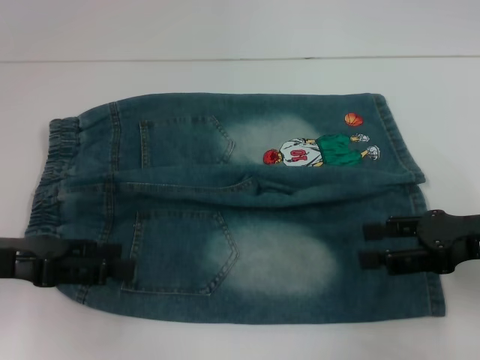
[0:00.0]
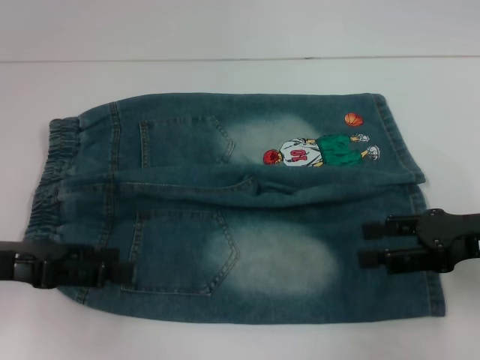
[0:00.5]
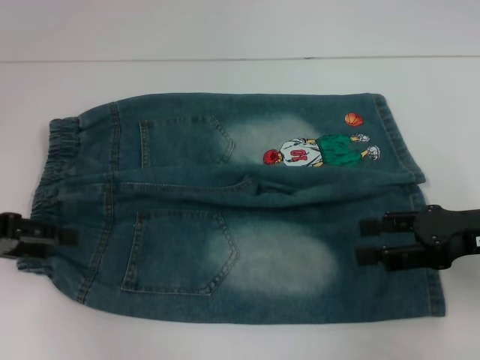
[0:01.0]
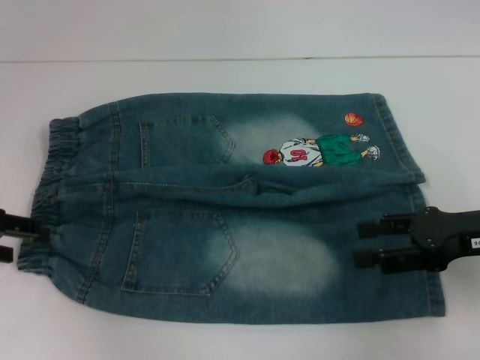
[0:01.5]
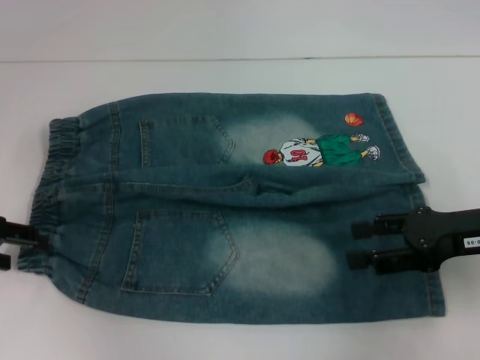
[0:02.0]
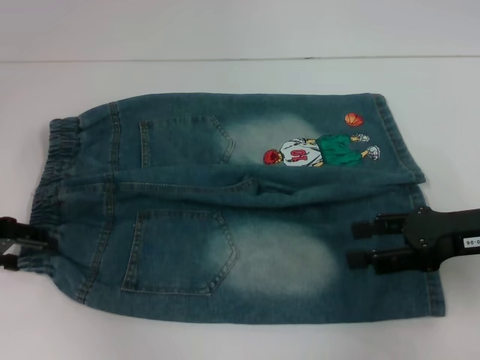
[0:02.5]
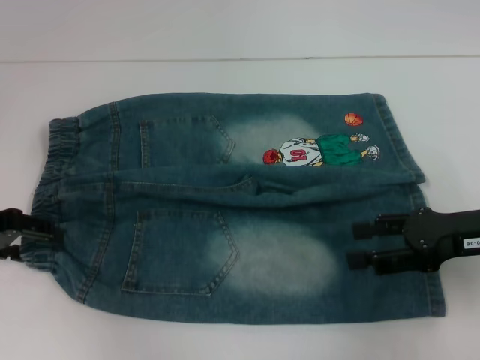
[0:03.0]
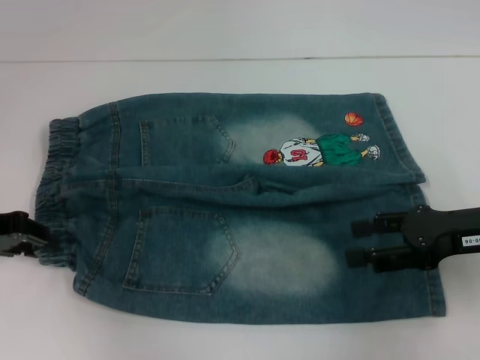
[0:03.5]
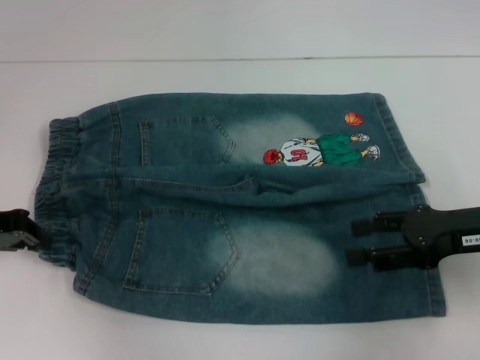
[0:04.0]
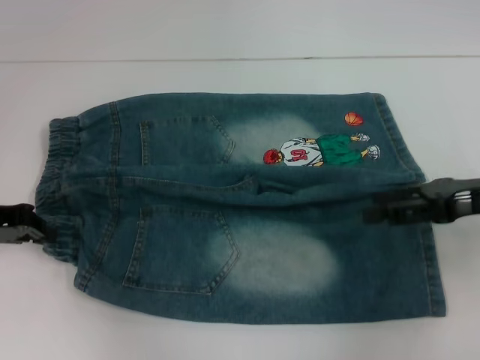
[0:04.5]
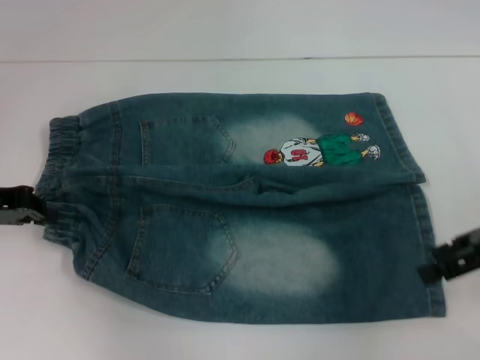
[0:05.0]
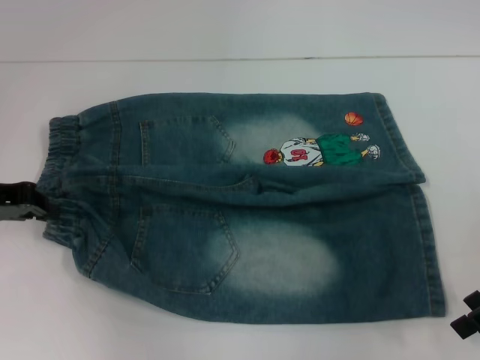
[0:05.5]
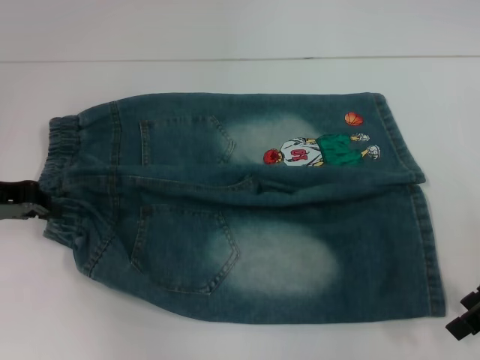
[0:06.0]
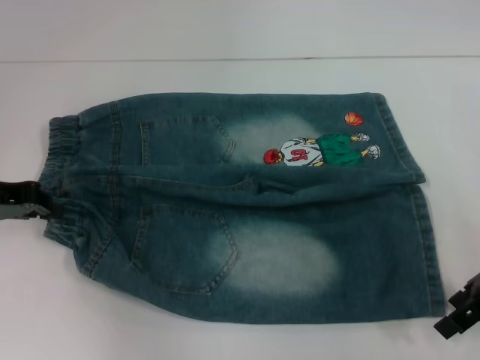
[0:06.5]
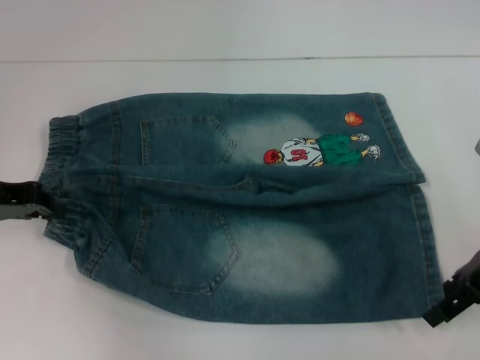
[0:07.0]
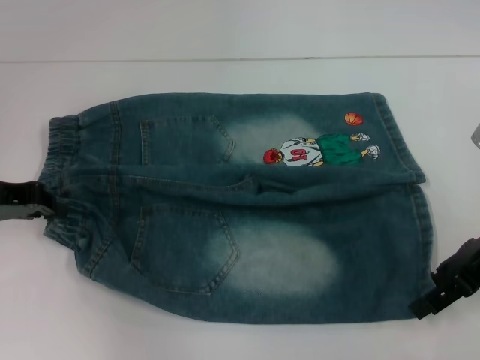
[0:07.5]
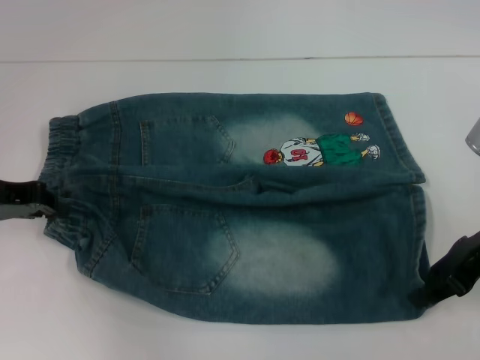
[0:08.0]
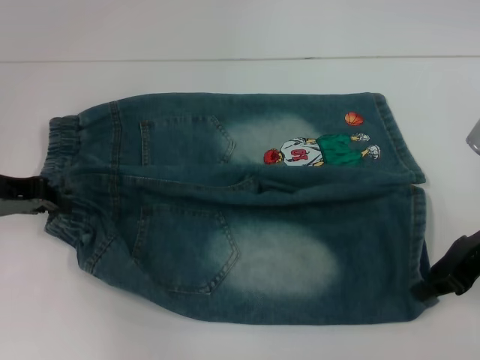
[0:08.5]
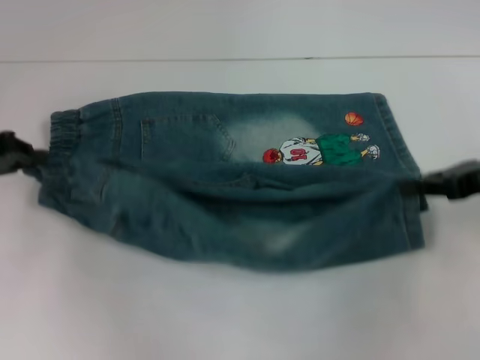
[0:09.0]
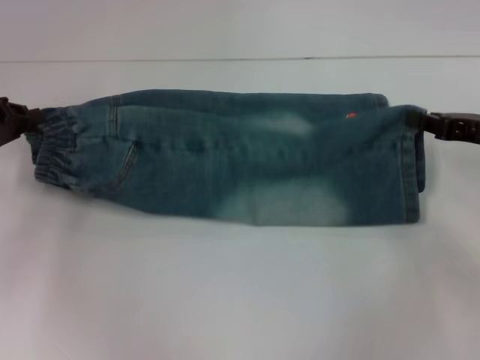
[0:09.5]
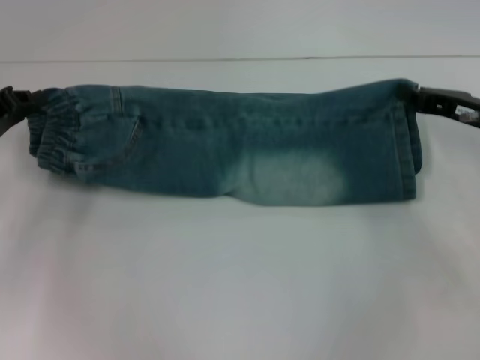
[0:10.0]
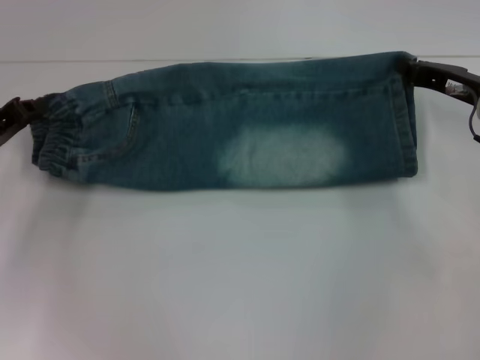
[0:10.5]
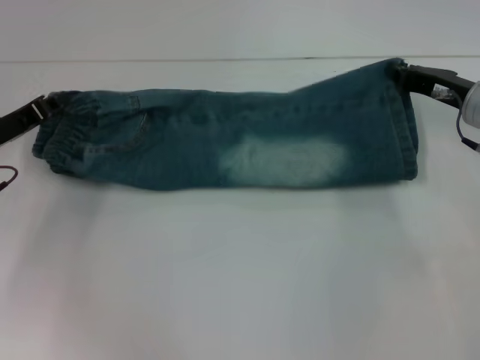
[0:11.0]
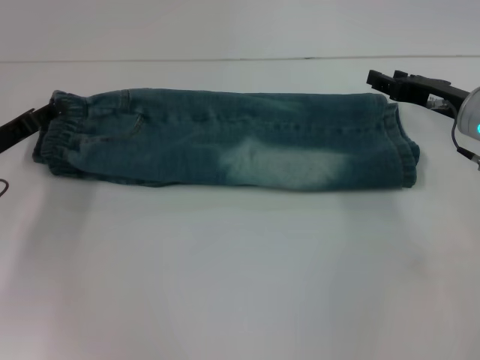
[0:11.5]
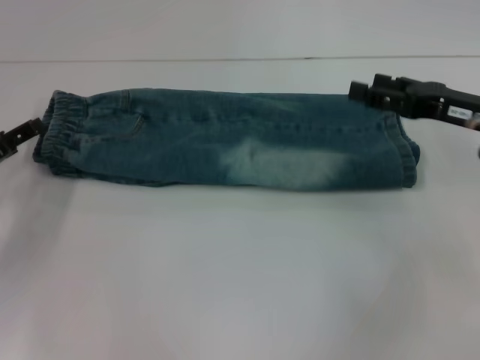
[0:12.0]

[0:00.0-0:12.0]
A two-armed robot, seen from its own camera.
Step, 0:00.0 to 0:04.0: Hold the lower left waistband with your left hand.
Step, 0:04.5 to 0:08.0: Grab the lower right pant leg with your right hand.
Step, 0:08.5 to 0:11.0: Fold upward with your left hand.
0:00.0 to 0:02.0: The left gripper is displaced forward and to the left by some 5 cm.
0:02.0 to 0:04.0: The left gripper closes its fingers.
0:06.0 to 0:08.0: The grippers move only a little.
0:08.0 to 0:10.0: The right gripper moves forward, about 5 cm, and closes up.
0:10.0 to 0:12.0: The right gripper opens up; the left gripper opens.

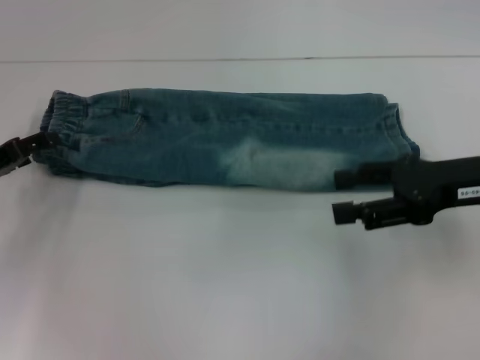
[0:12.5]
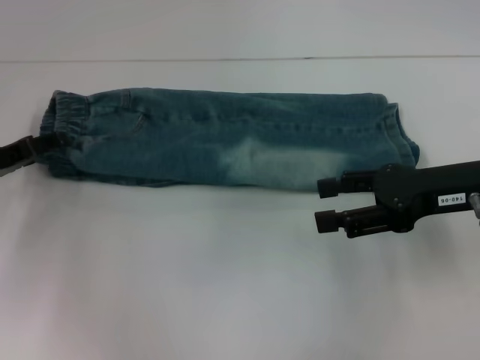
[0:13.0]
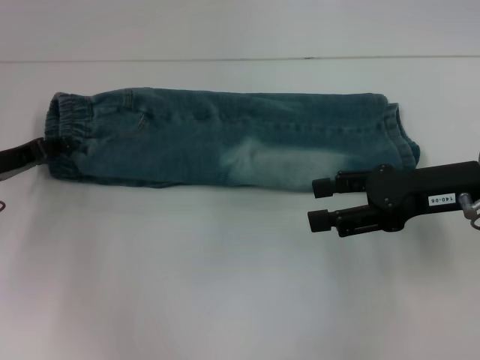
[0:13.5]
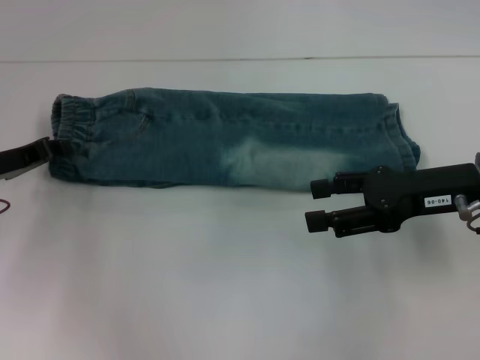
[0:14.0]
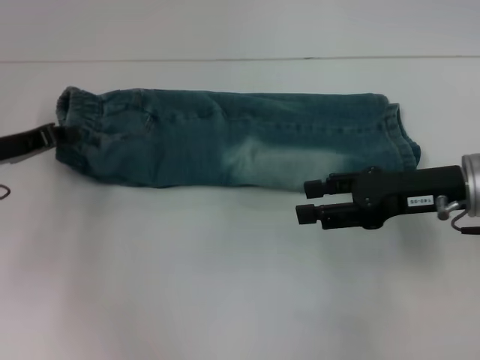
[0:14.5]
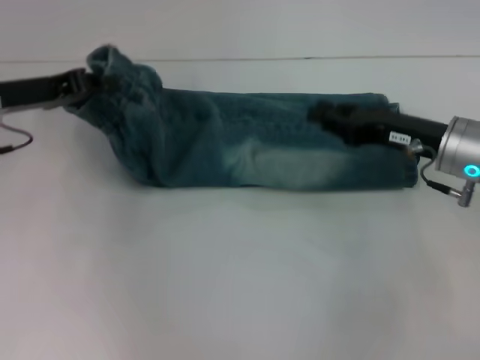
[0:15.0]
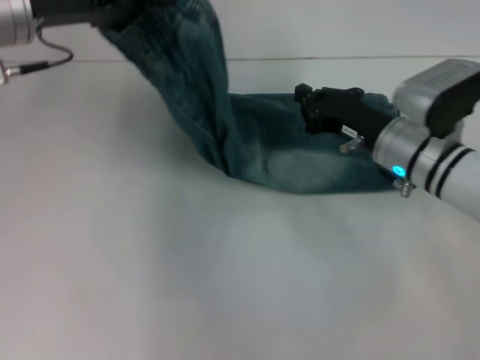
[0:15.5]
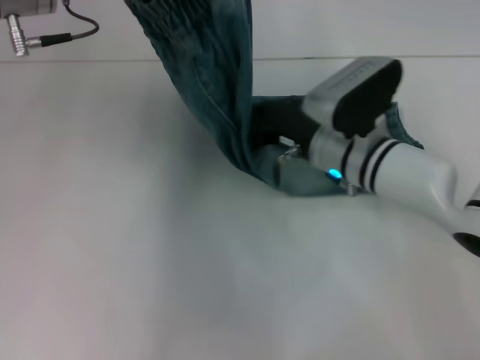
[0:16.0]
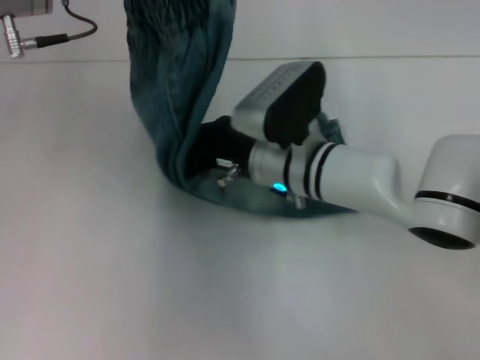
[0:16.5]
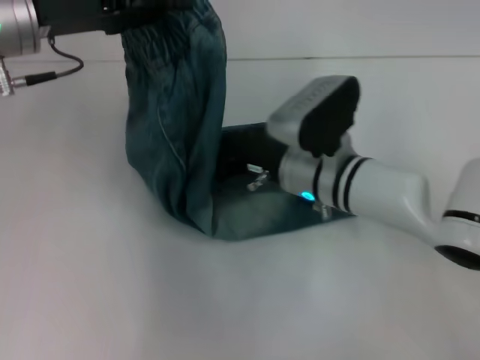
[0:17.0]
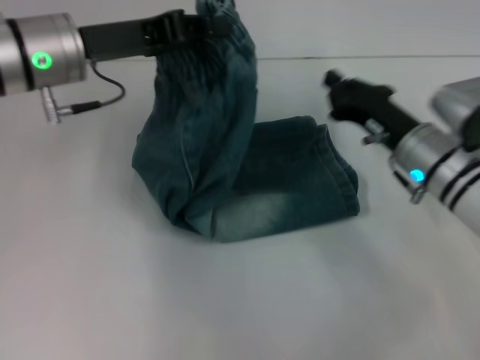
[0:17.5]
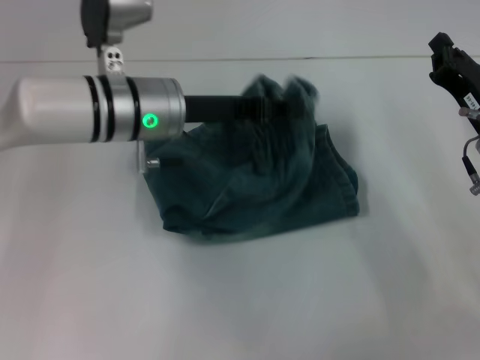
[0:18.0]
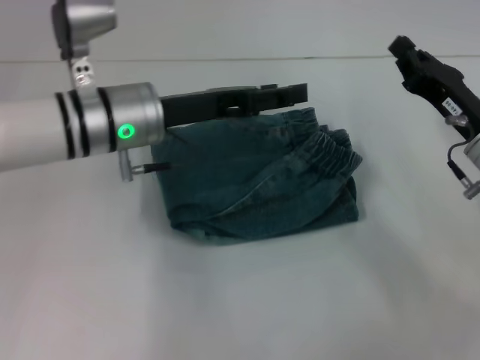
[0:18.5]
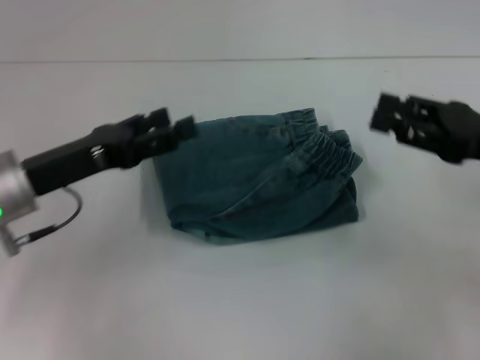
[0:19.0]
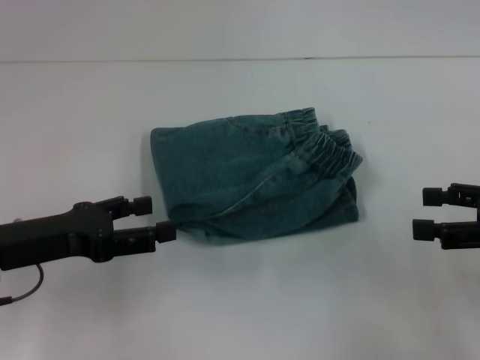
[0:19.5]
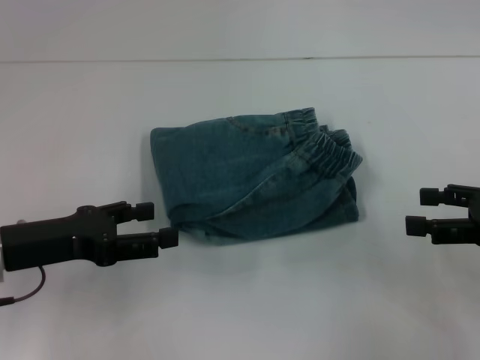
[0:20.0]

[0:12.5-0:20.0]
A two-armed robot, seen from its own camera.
Step, 0:12.5 to 0:14.0: Hold the waistband with your left hand.
Step, 0:14.5 to 0:17.0: Press the middle of the pants with your right hand.
Step, 0:17.5 to 0:18.0: Fold to the right with your left hand.
0:12.5 to 0:14.5: The left gripper closes its fingers.
0:14.5 to 0:16.5: The right gripper travels to the left by roughly 20 cm, and closes. Meanwhile the left gripper moves upward and to the right, about 20 cm.
0:16.5 to 0:18.0: The left gripper goes about 15 cm downward and to the right, while the right gripper moves to the right, about 20 cm.
0:18.0 to 0:20.0: The left gripper is displaced to the left and backward by roughly 20 cm, and opens up. The right gripper moves to the right, backward and upward, some 10 cm, and opens its fingers.

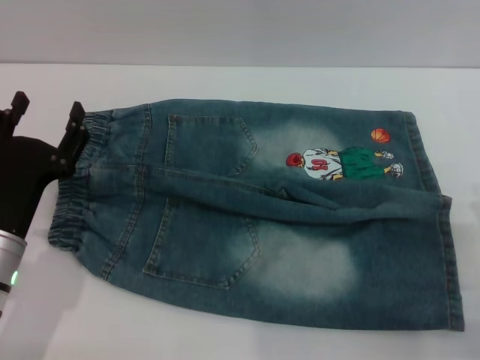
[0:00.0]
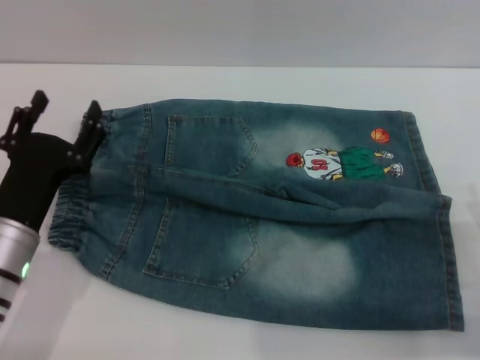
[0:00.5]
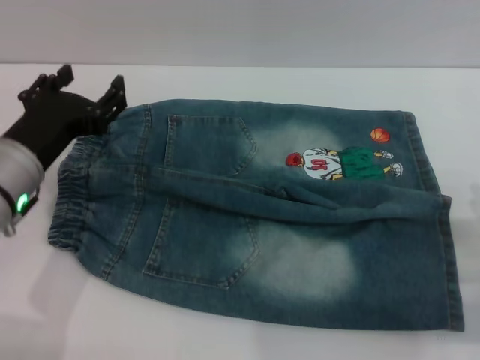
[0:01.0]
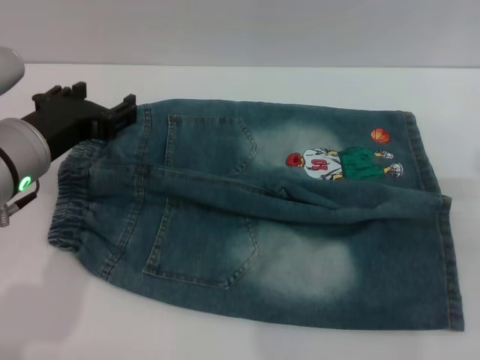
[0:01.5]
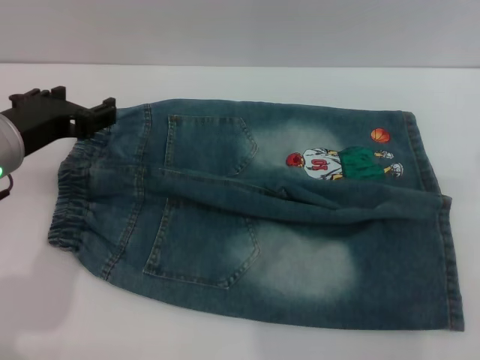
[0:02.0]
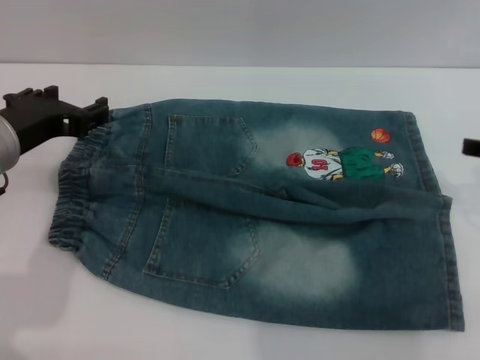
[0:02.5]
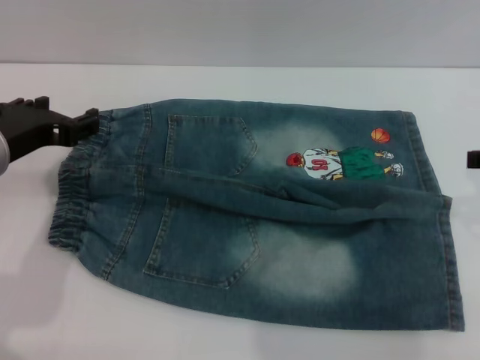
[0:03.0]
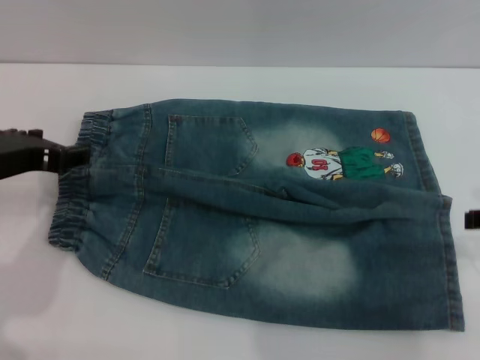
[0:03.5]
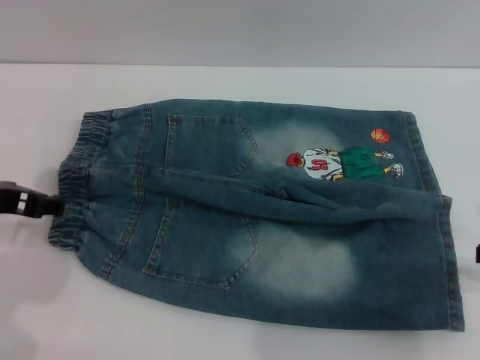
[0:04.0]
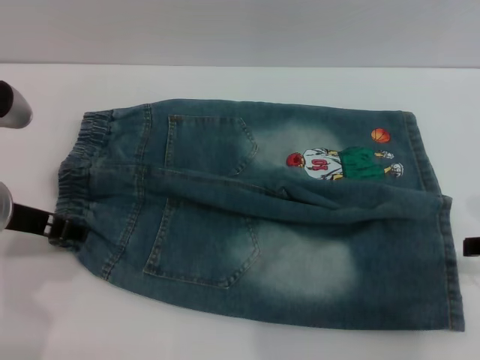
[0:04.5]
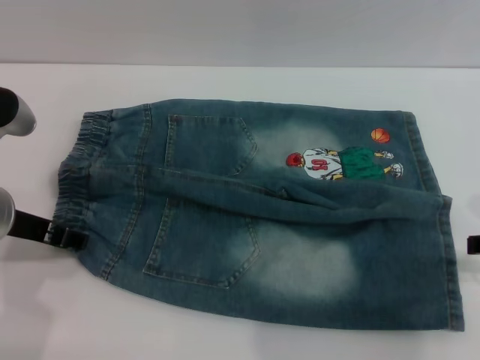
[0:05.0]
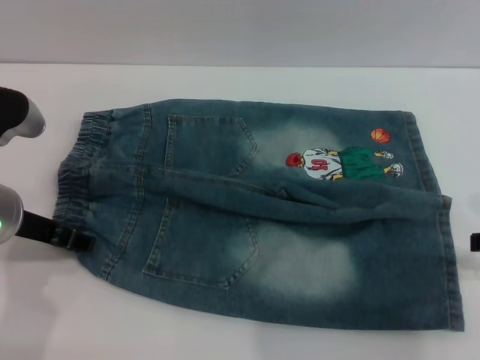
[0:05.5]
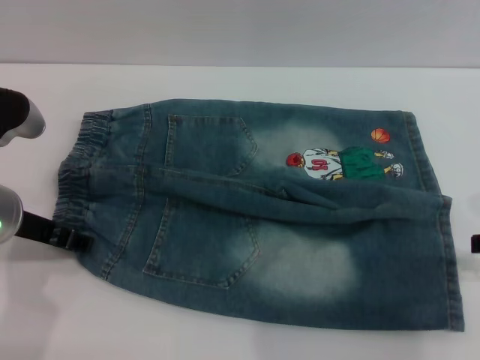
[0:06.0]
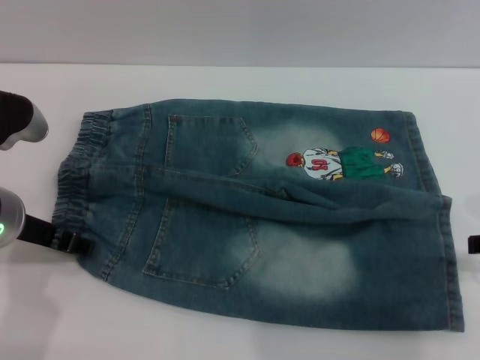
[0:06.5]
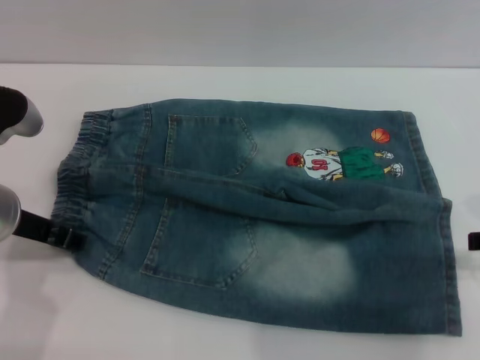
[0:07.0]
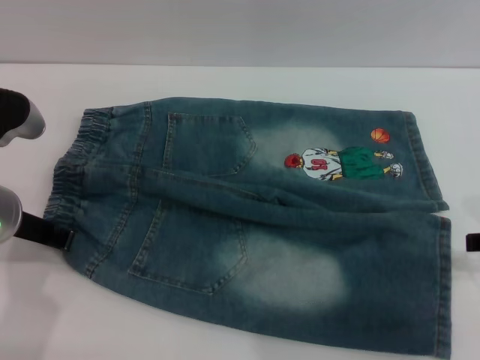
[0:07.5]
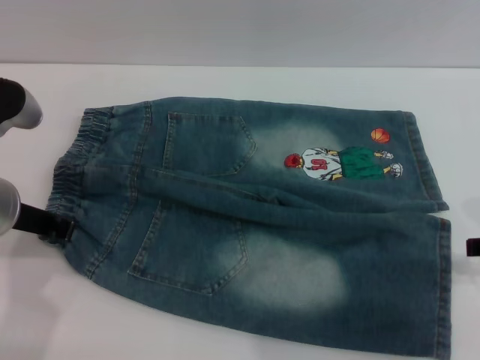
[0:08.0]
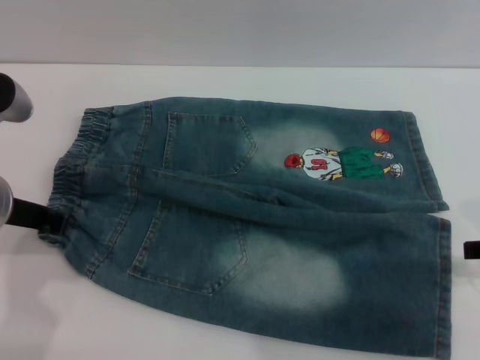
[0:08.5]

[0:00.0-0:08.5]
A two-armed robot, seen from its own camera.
0:00.0 to 0:02.0: The left gripper goes some 15 cm upward and forward.
0:04.0 to 0:06.5: The grippers make only small movements.
0:06.5 to 0:08.5: The left gripper closes up.
